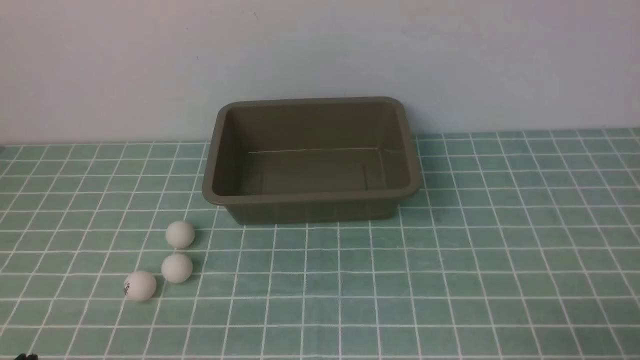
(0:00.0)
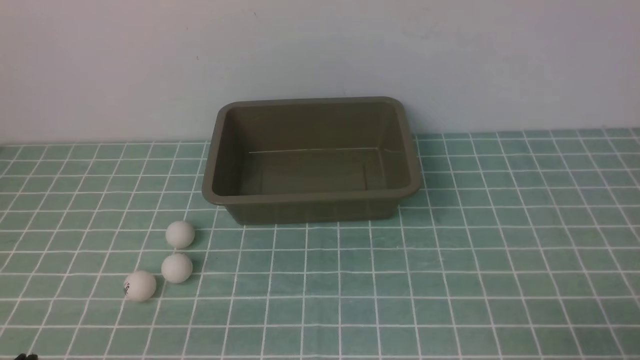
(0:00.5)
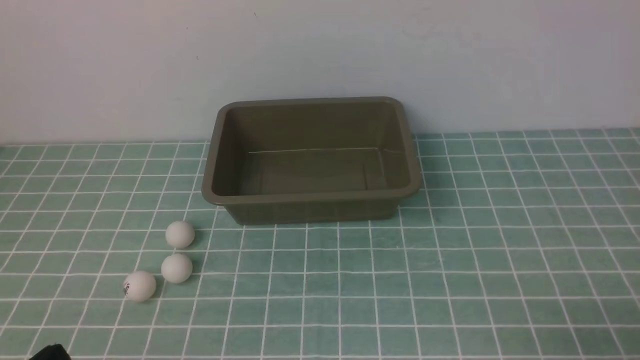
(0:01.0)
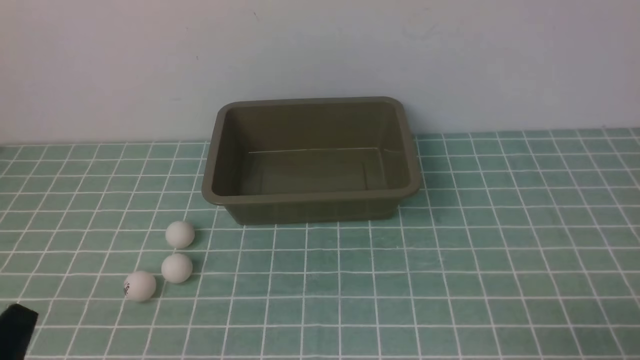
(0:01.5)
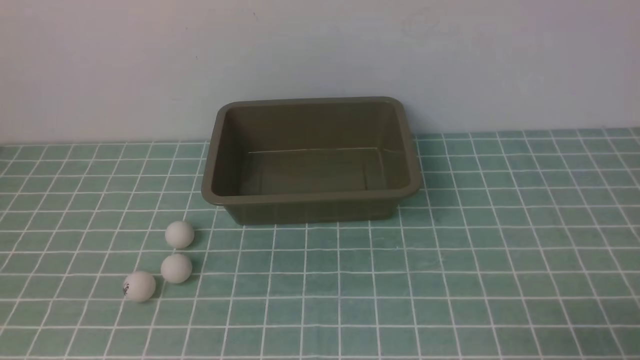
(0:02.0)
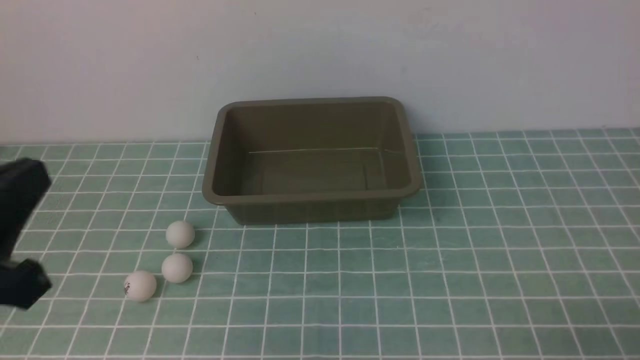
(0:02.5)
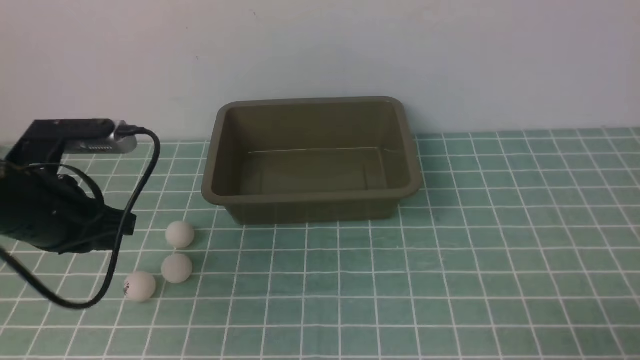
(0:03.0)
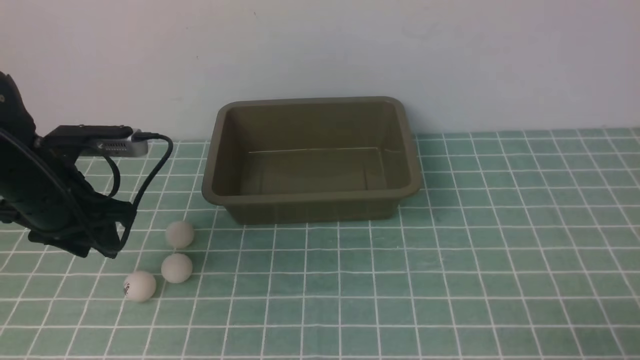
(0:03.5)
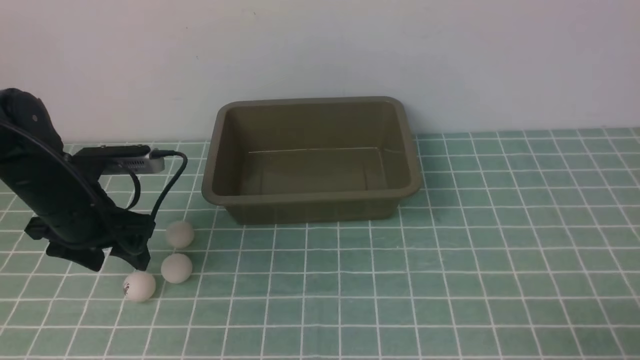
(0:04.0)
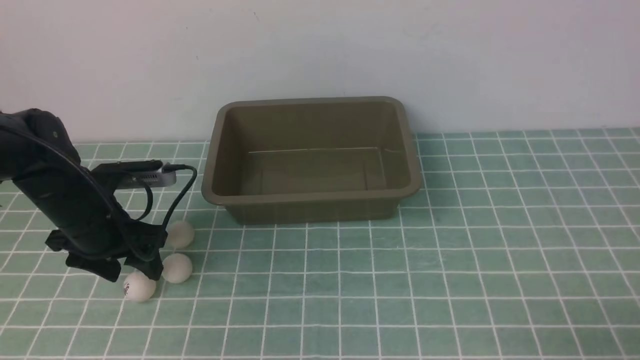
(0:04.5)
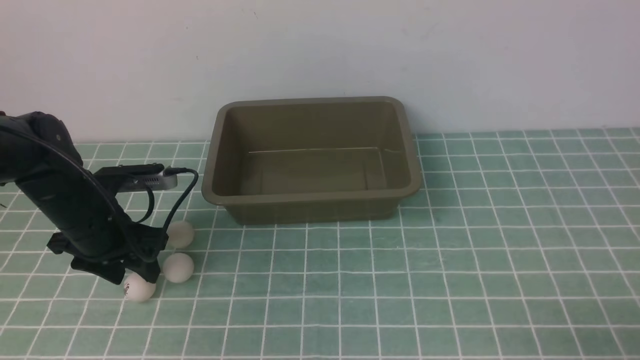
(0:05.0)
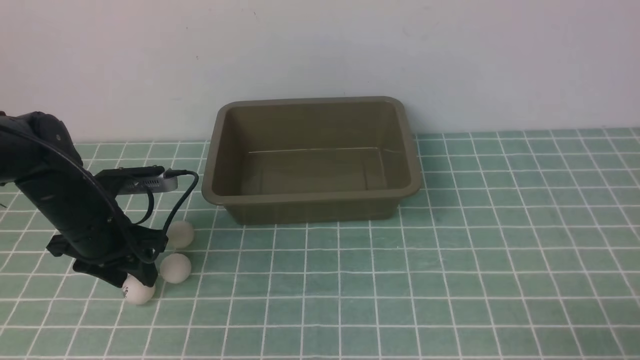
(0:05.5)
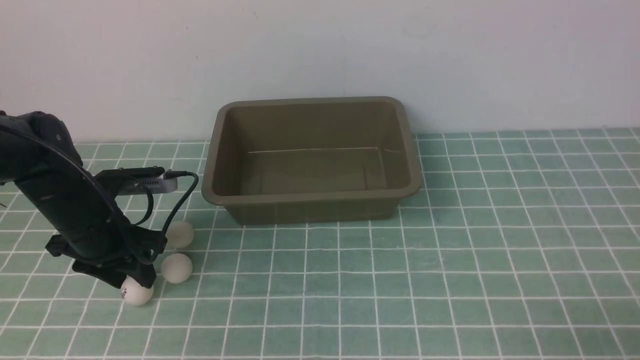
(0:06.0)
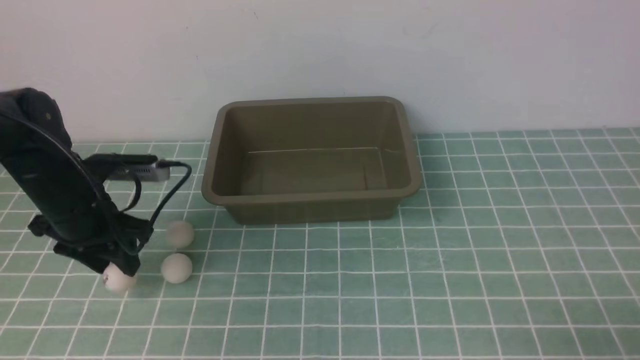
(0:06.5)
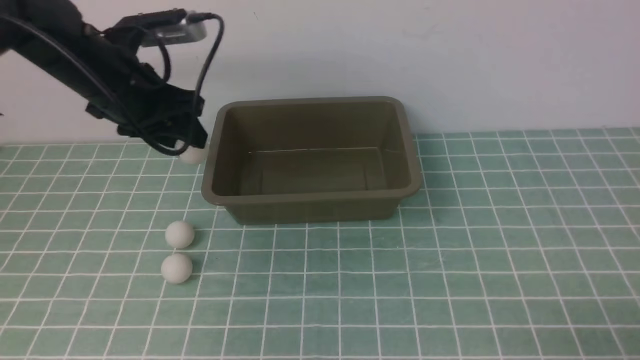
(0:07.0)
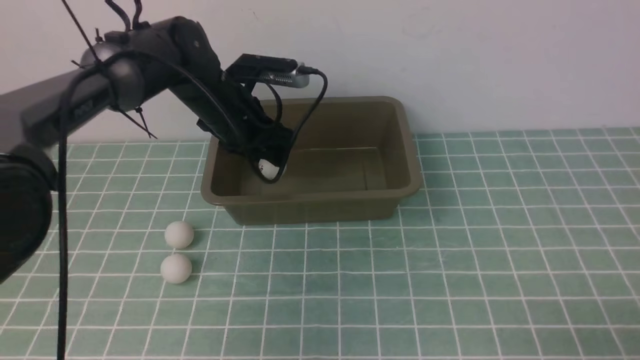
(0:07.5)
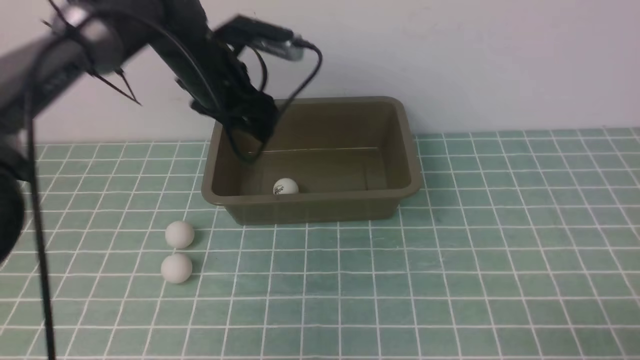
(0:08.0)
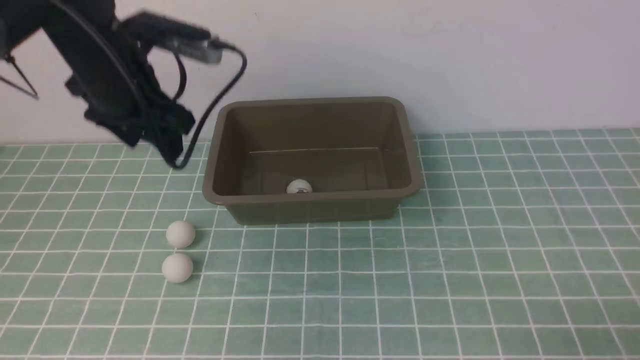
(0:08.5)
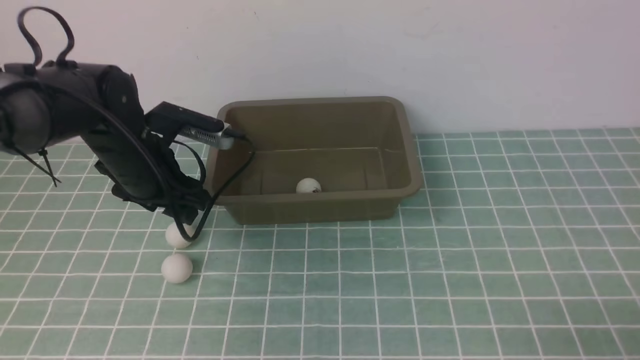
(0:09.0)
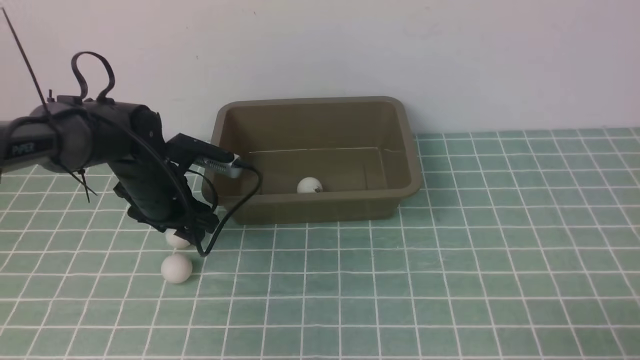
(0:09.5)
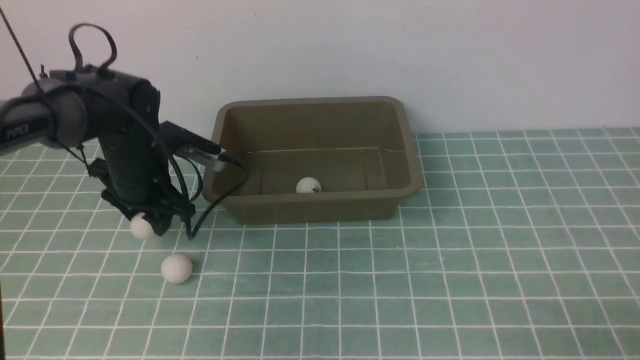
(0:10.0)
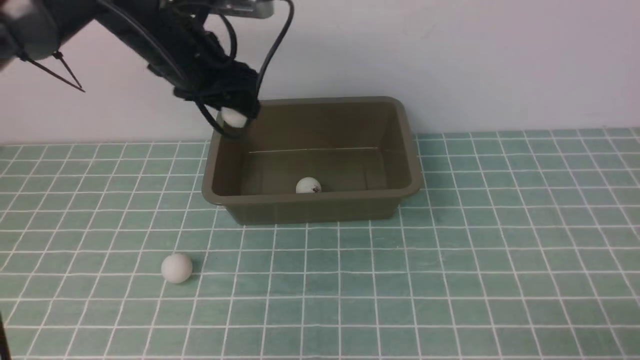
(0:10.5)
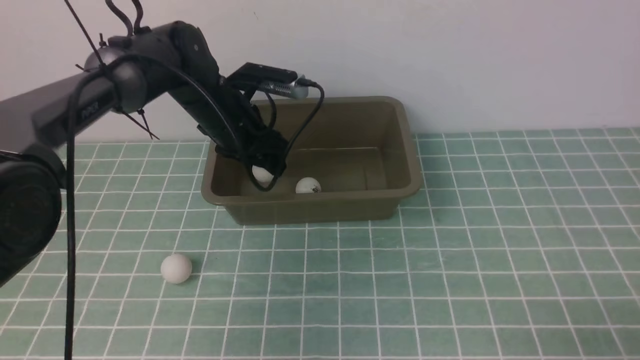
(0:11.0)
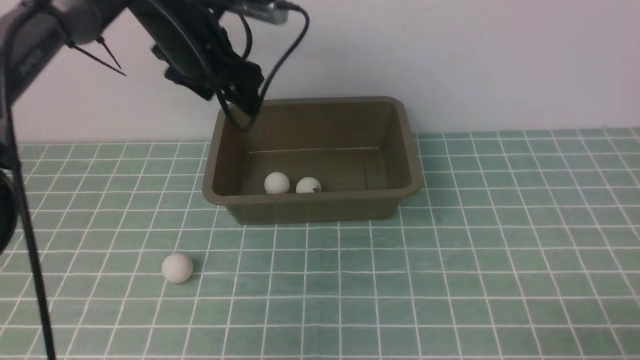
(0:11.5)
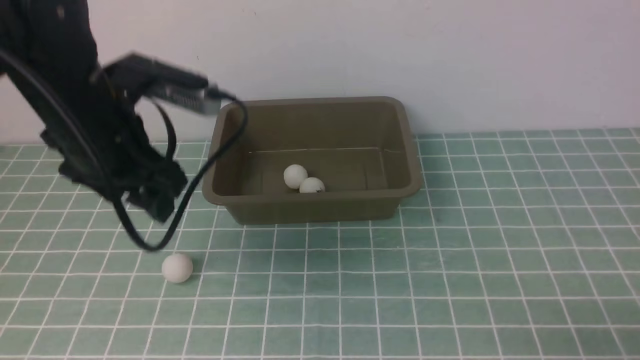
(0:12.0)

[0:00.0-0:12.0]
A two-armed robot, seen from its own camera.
Step, 0:00.0 to 0:06.5: use the left arm to clamp the table tennis ball closest to it.
Step, 0:07.0 to 0:07.5: use the left arm to put the table tennis ball into the box.
Step, 0:08.0 to 0:10.0: use the left arm to clamp the table tennis ball closest to it.
Step, 0:10.5 to 0:11.0: use the left arm to put the table tennis ball into the box.
0:02.0 to 0:04.0: The left gripper goes roughly 30 cm forward, and opens its fingers.
0:04.0 to 0:06.0: The grippers make only small movements.
0:06.0 to 0:08.0: The left gripper shifts about 5 cm to the right.
0:08.0 to 0:10.0: The left gripper swings up and down, about 10 cm each way, with 2 reversals.
0:10.0 to 0:12.0: The left gripper is displaced backward, downward and to the left by roughly 15 cm.

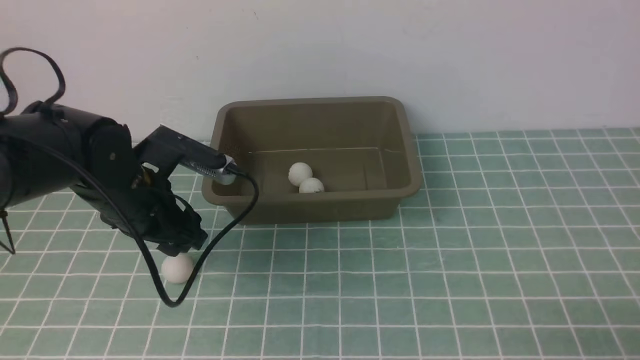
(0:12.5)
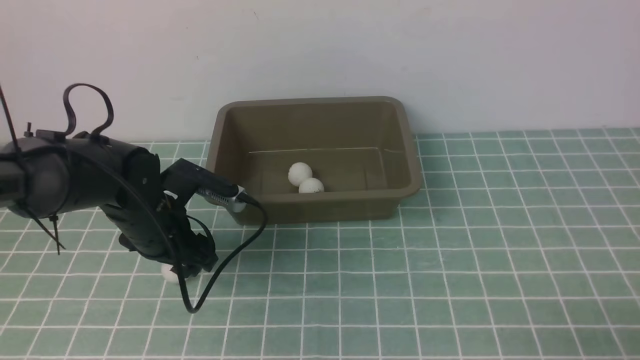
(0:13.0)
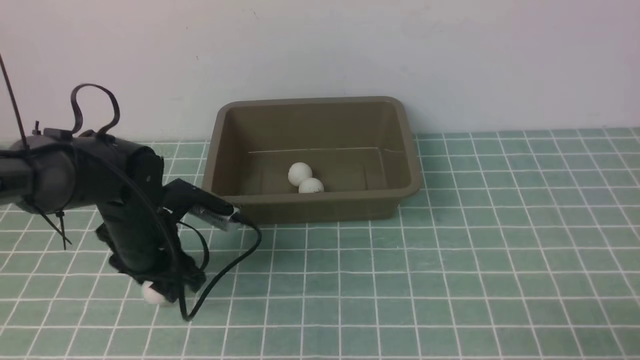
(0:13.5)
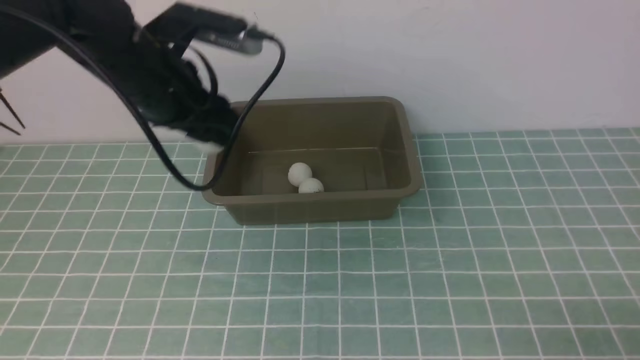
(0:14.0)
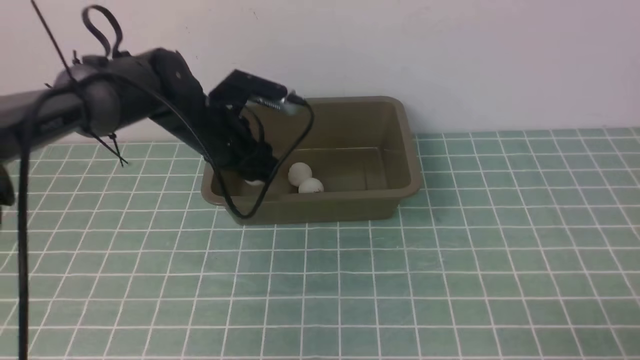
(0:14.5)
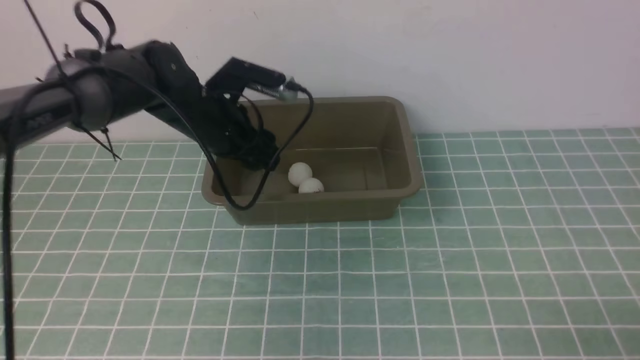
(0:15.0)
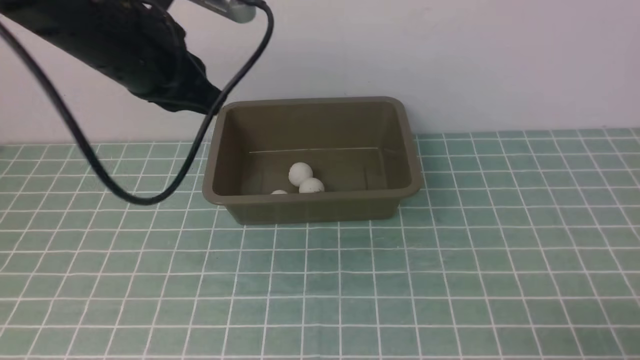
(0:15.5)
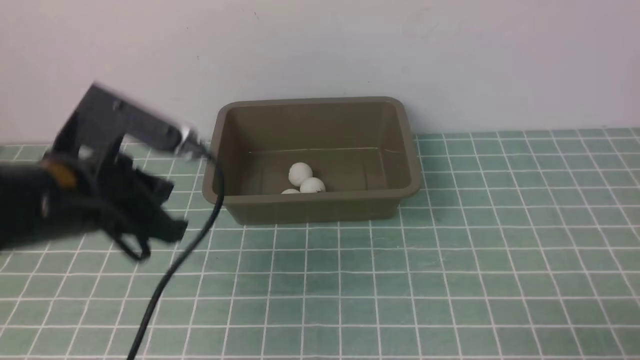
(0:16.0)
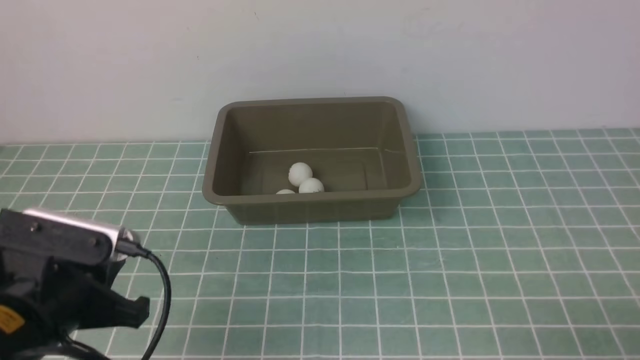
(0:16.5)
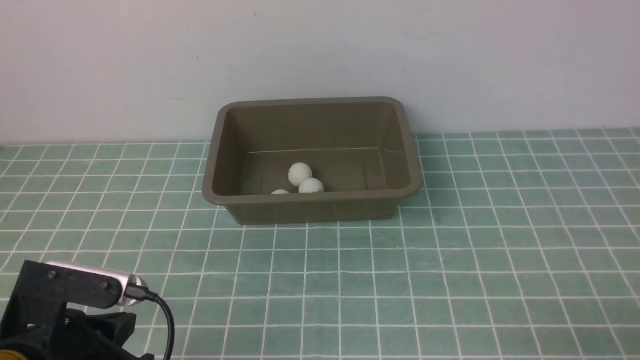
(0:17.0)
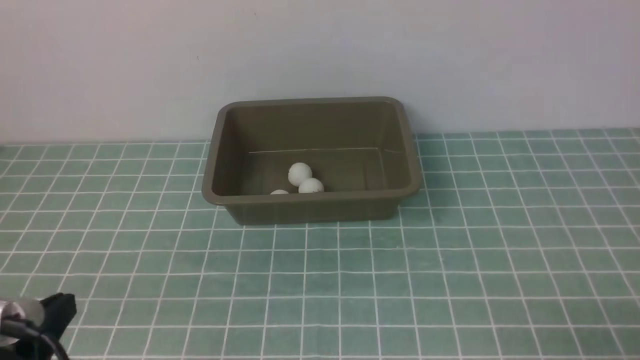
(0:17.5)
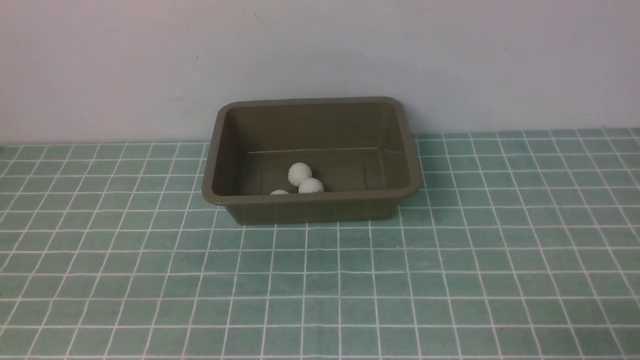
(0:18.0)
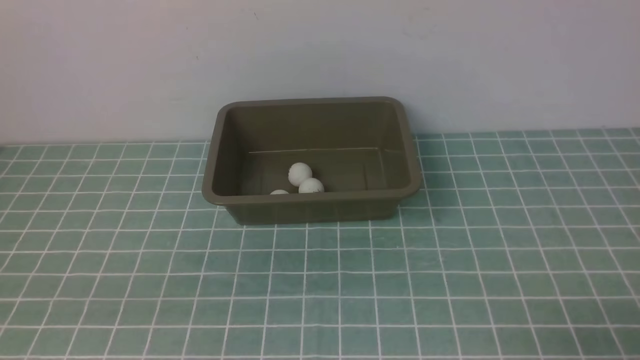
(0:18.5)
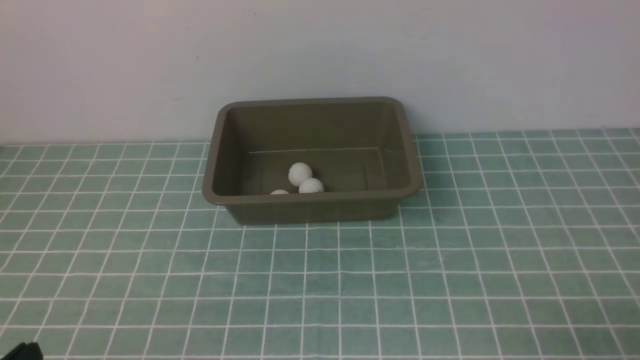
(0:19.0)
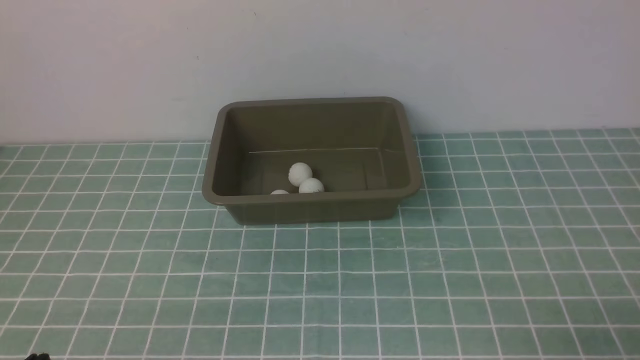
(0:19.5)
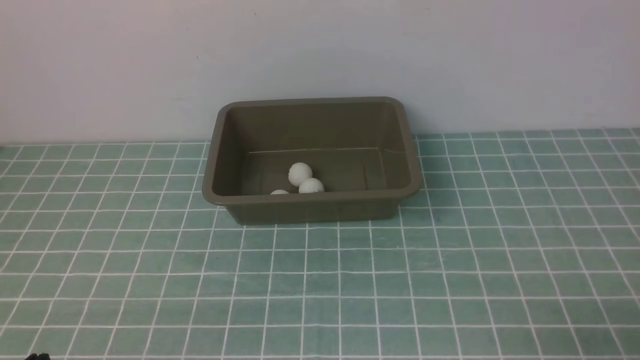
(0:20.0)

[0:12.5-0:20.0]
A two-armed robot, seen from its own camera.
Step, 0:14.0 to 0:14.5: use the left arm to put the table tennis ball into the box.
0:12.5 to 0:14.5: The left gripper moves forward and to the right, approximately 10 cm, and goes upward and returns, approximately 15 cm each way.
0:14.5 to 0:16.5: The left gripper moves backward, about 25 cm, and closes.
0:16.5 to 0:18.0: The left gripper shifts some 10 cm backward.
